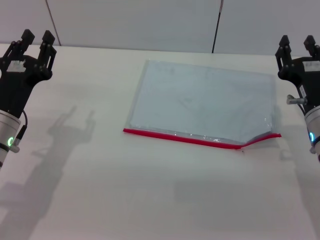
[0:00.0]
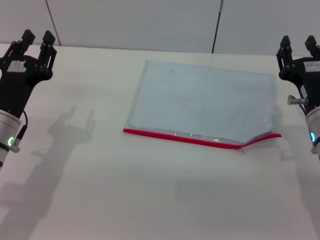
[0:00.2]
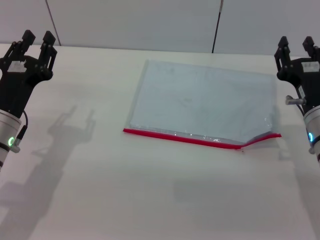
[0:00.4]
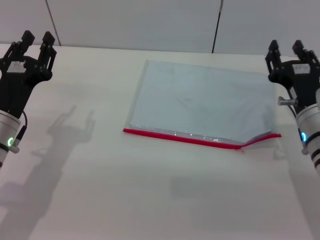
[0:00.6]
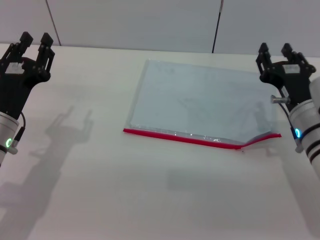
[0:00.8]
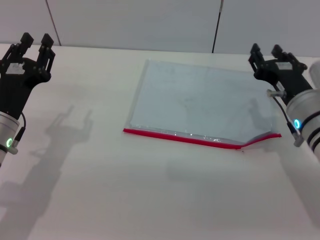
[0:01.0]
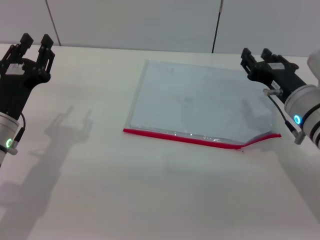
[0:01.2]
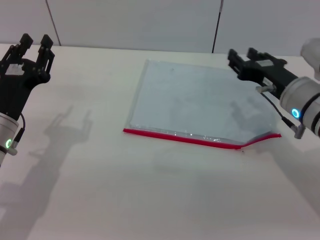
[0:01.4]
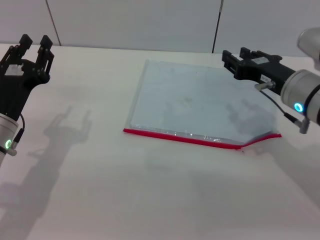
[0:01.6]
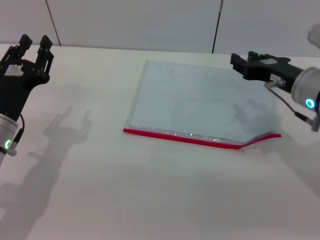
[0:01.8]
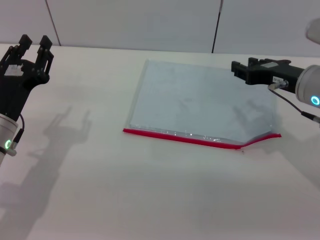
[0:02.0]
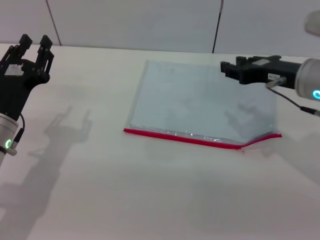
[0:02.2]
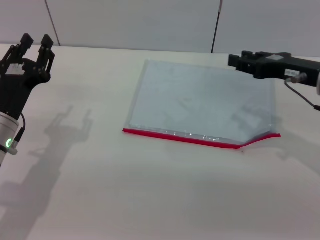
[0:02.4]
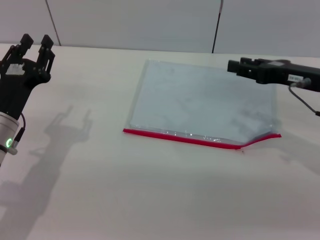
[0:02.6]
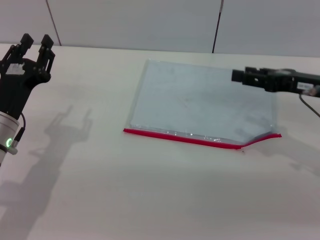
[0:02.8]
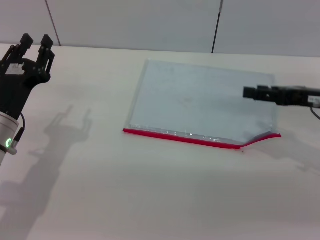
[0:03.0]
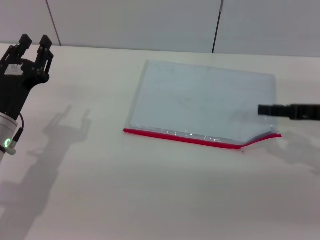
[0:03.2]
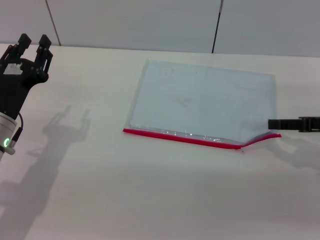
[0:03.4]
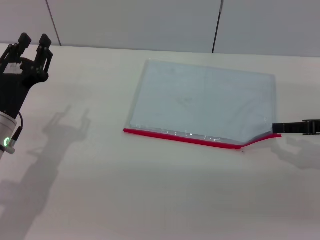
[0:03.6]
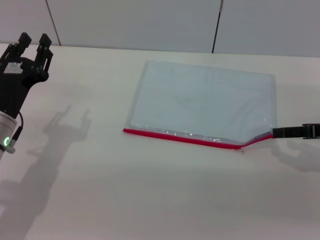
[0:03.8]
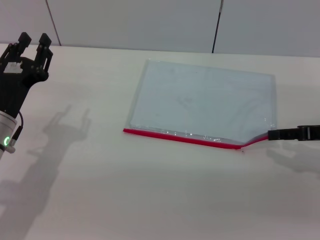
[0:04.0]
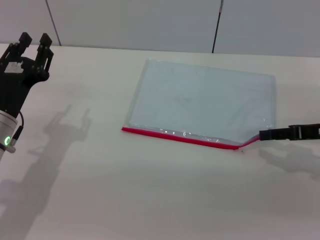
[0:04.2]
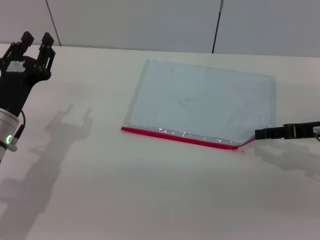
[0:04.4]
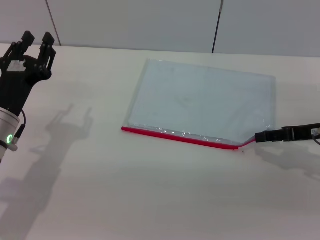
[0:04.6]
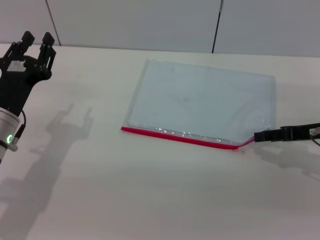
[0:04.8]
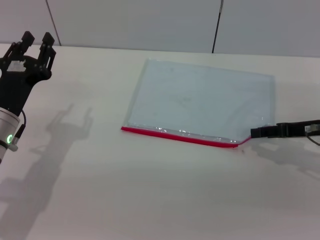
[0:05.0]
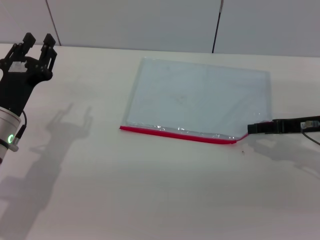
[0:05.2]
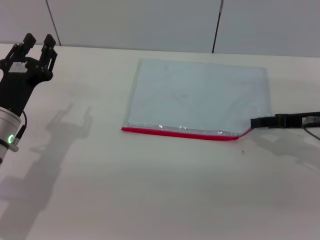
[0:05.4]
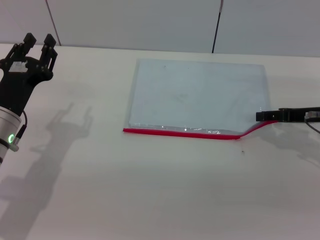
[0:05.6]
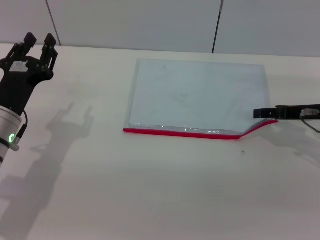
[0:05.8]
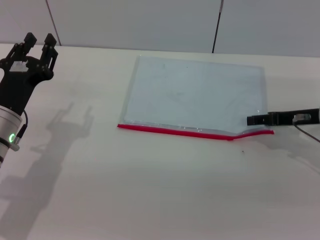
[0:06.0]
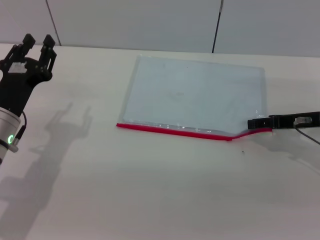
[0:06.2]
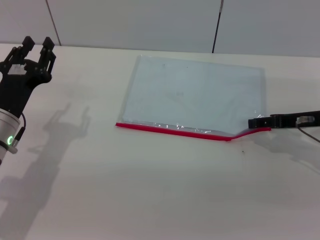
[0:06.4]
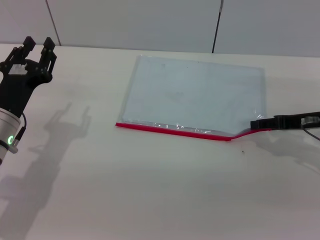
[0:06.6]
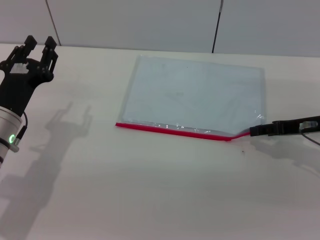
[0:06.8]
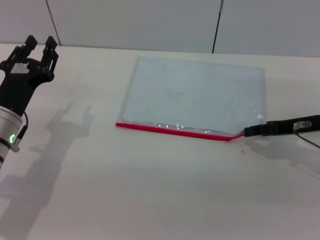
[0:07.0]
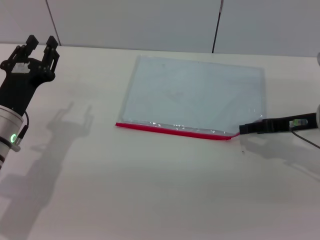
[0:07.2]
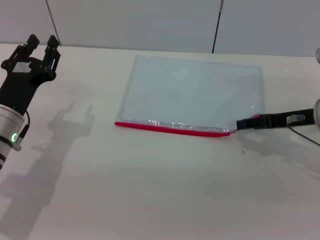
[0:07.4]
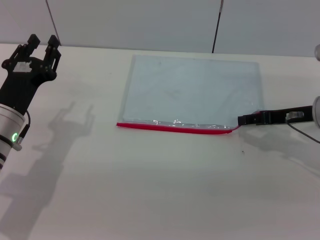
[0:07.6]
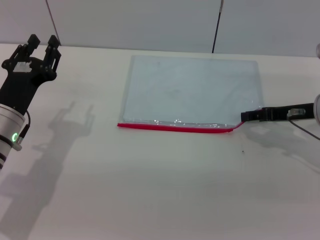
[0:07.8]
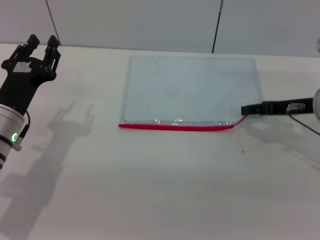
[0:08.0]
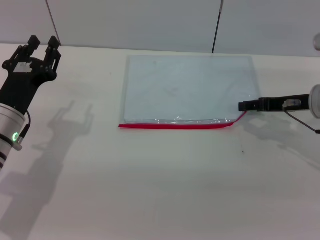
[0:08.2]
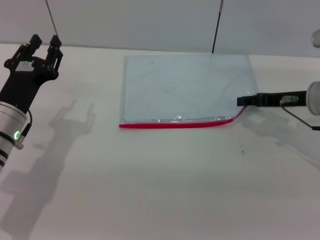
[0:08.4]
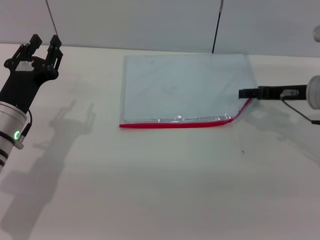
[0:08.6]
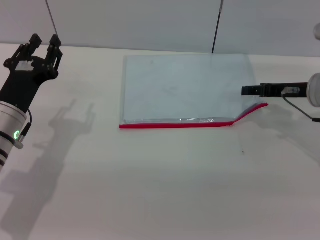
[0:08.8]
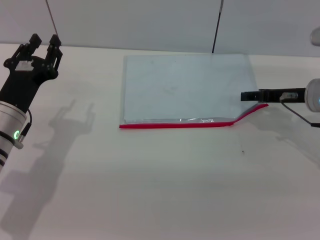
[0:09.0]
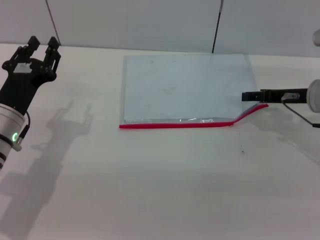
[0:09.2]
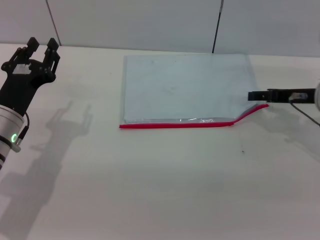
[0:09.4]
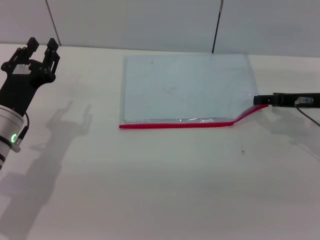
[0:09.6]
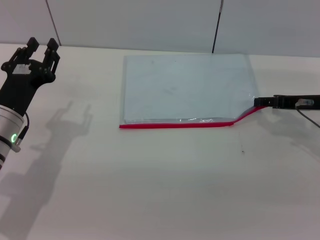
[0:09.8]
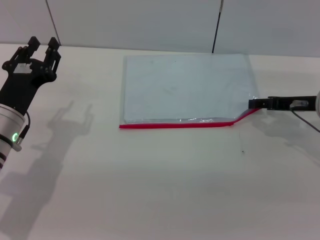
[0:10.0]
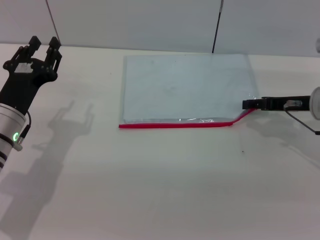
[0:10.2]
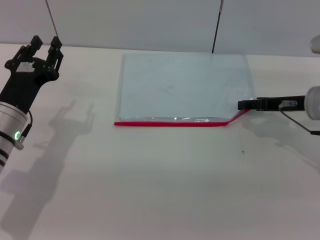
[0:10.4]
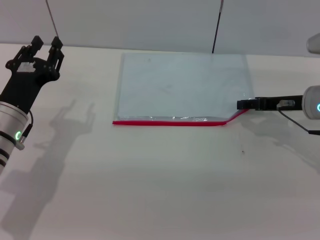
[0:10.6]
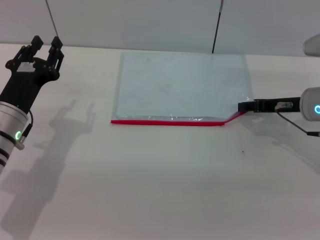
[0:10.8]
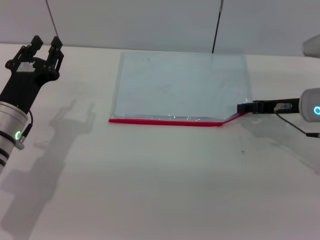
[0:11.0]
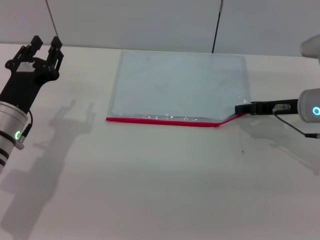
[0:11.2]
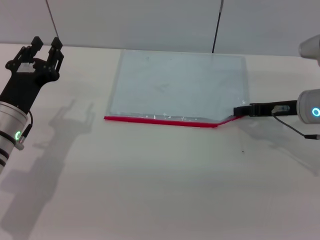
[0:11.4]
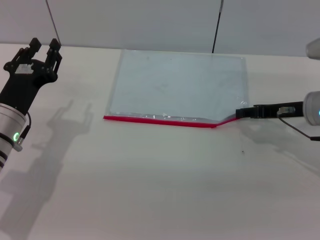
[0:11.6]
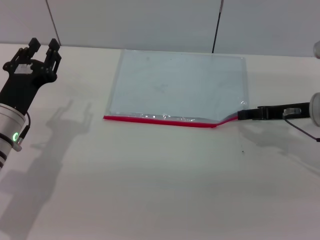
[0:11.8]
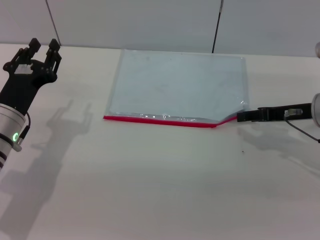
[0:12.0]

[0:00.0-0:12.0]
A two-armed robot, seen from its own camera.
0:00.0 to 0:01.6: The right gripper heads upward, covering about 5 cm.
0:01.6 to 0:03.0: The right gripper goes about 10 cm to the right.
0:04.4 to 0:07.6: The grippers make only small movements.
0:07.6 to 0:12.0: There are only small adjustments of the grippers.

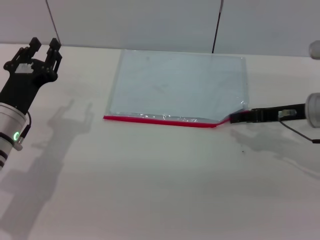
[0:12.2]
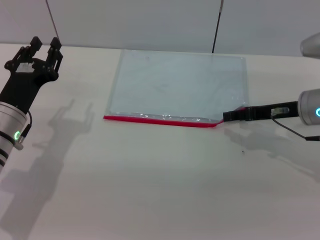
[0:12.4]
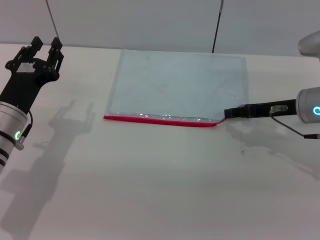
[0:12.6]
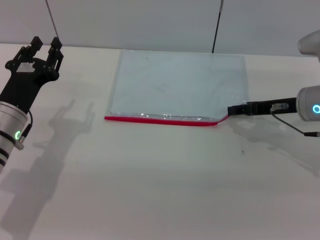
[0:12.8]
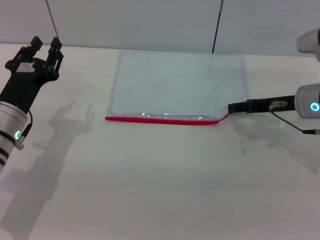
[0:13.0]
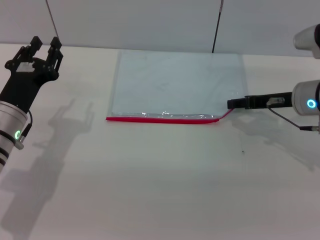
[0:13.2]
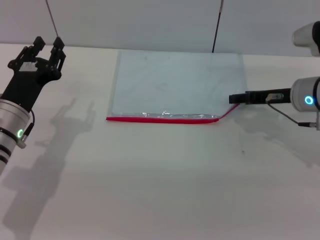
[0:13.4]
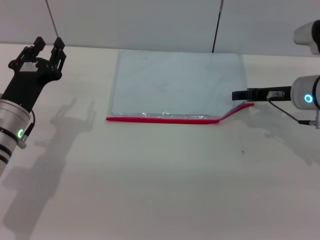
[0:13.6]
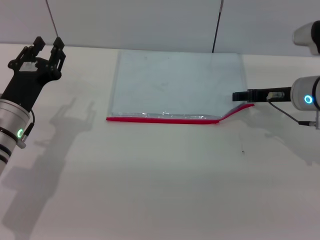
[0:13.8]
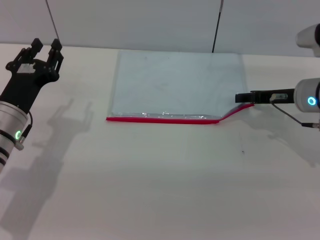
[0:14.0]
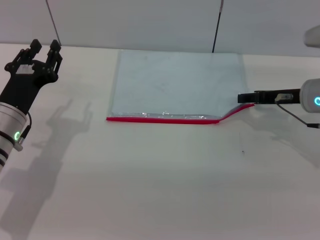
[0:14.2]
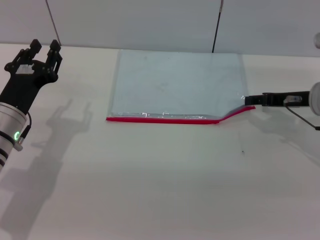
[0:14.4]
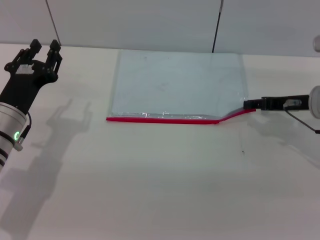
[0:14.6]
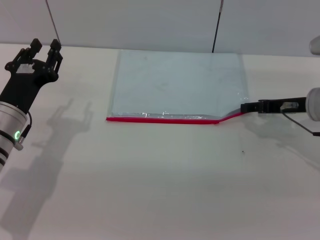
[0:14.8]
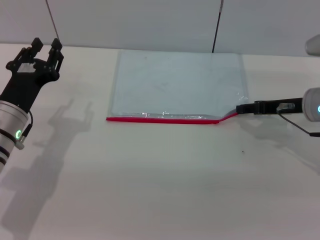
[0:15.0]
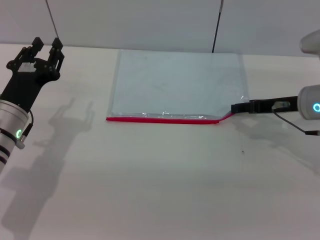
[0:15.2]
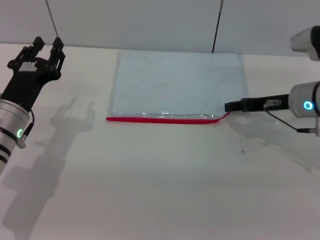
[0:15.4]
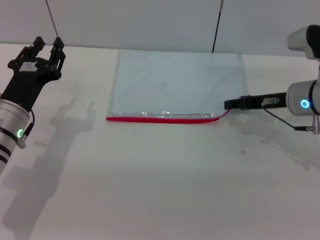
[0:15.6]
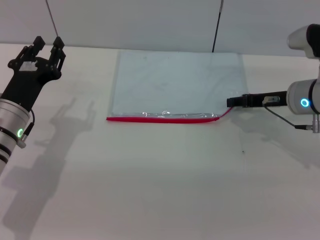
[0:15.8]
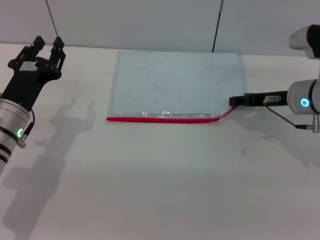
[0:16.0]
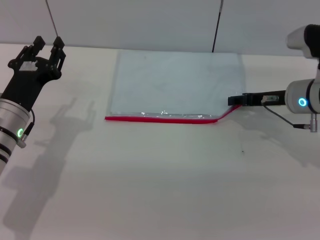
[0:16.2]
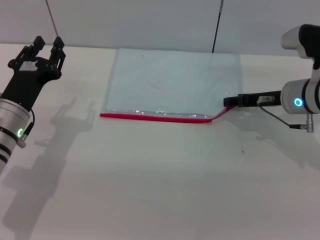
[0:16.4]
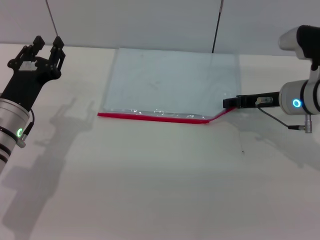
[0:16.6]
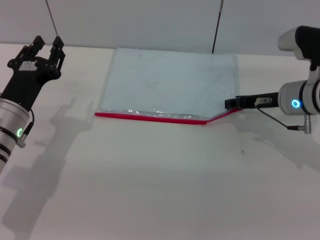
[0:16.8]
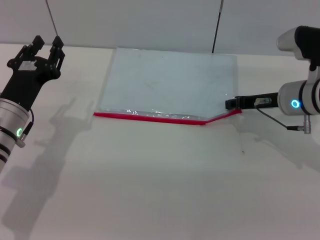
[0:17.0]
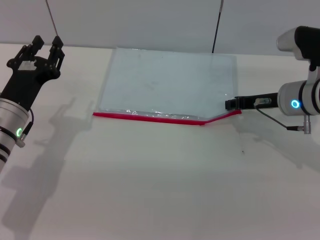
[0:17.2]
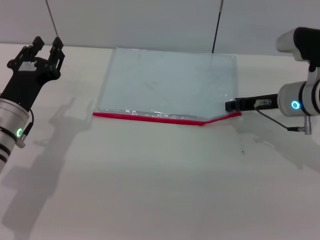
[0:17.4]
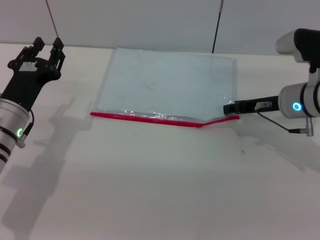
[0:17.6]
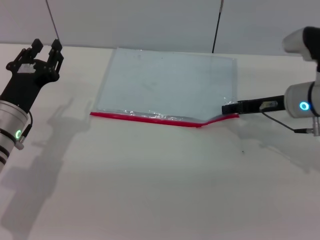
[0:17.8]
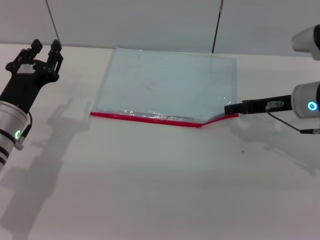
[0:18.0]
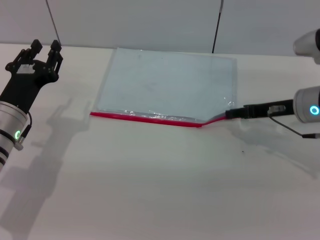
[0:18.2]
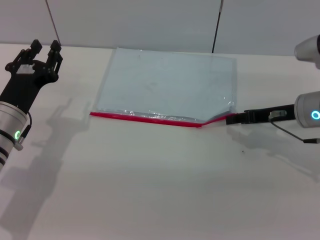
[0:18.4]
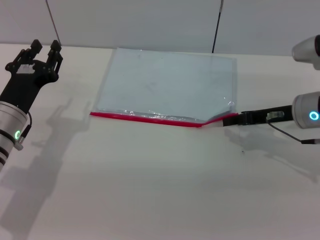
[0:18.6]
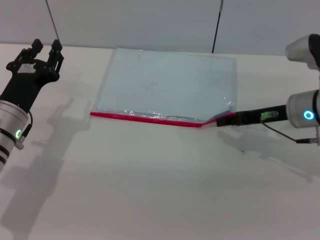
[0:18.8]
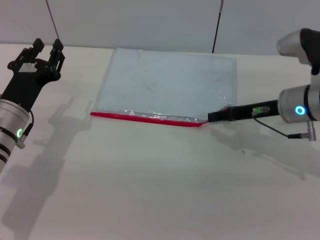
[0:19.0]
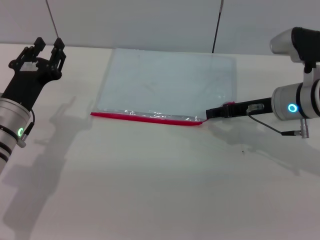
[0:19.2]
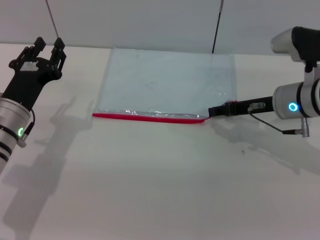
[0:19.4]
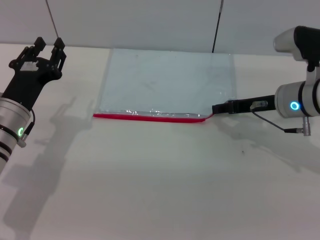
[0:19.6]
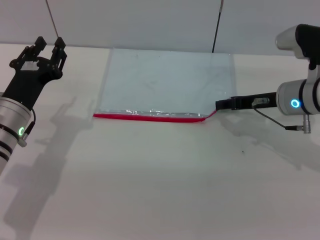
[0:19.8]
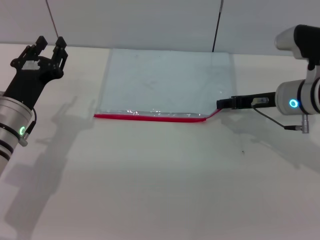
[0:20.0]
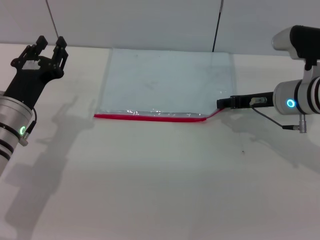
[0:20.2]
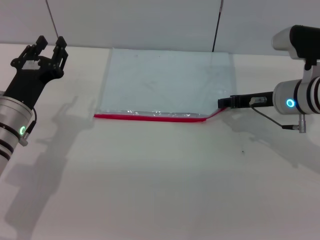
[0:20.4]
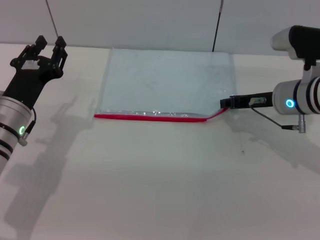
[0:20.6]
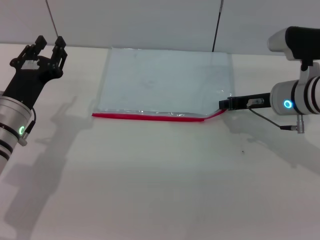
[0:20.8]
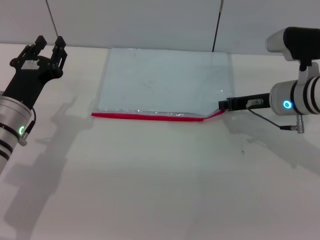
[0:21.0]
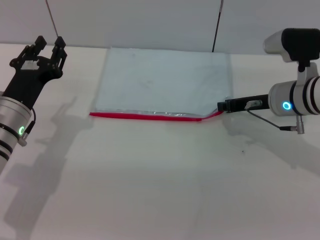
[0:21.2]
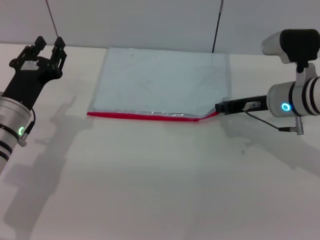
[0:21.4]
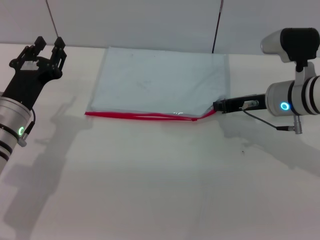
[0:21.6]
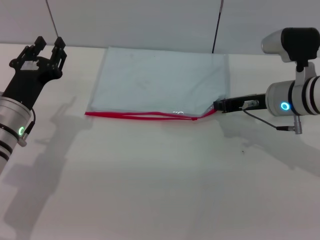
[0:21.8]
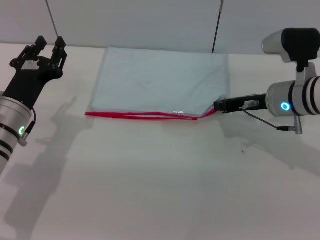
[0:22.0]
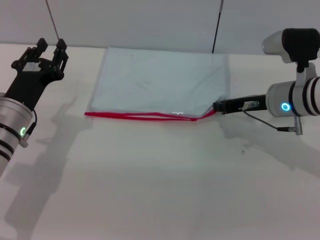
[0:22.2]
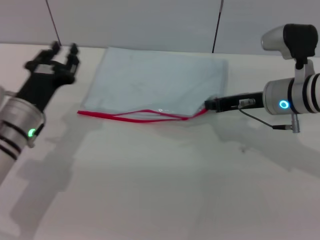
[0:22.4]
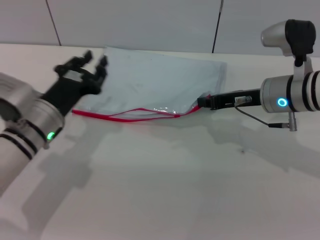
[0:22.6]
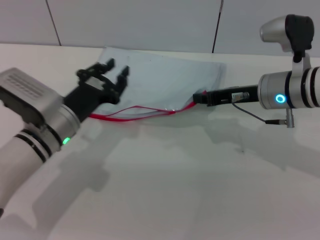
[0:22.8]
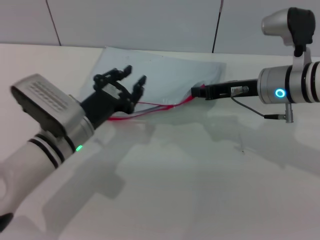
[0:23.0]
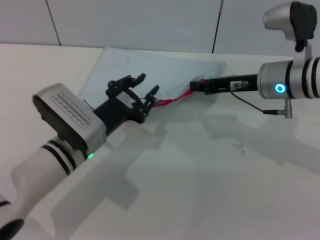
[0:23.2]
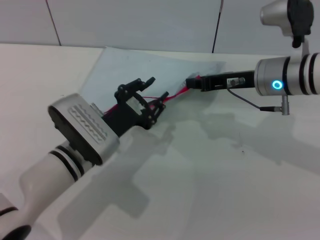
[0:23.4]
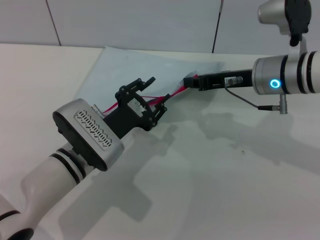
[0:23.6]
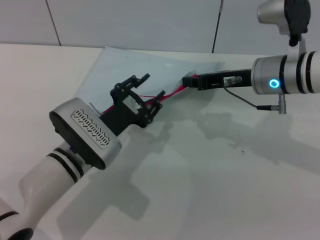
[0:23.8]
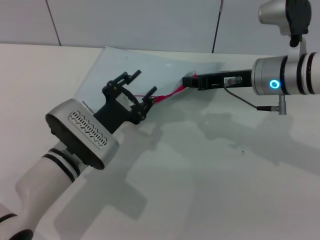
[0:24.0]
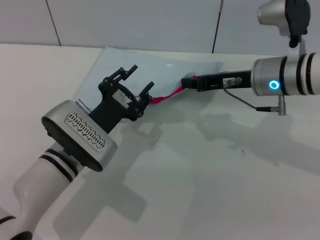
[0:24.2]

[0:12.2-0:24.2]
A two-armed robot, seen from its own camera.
Step, 0:12.2 to 0:23.2: Pick up the transparent plastic bag with the right gripper.
0:12.2 to 0:16.6: The grippers make only small movements.
0:16.6 to 0:18.2: The right gripper closes, then reopens.
0:18.2 to 0:19.8: There are only small adjustments of the grippers.
0:19.8 to 0:21.2: The right gripper closes up.
0:22.6 to 0:24.2: The left gripper is displaced to the right by about 5 cm.
